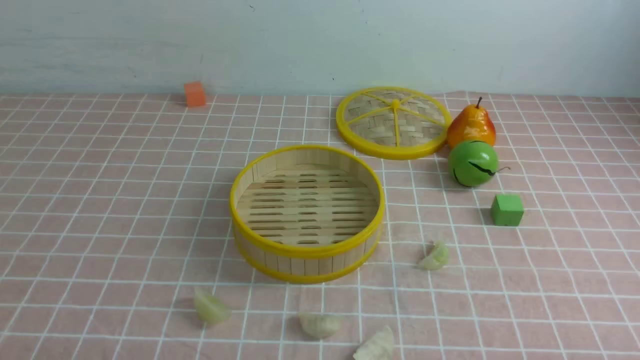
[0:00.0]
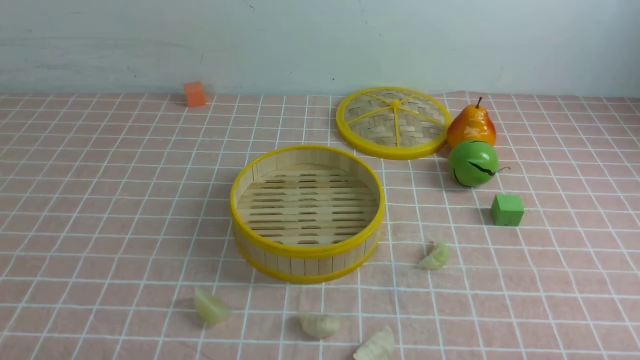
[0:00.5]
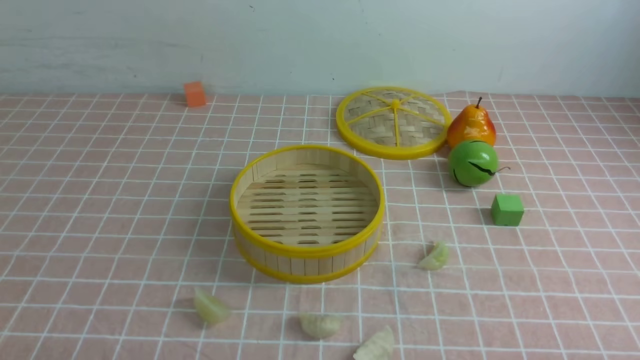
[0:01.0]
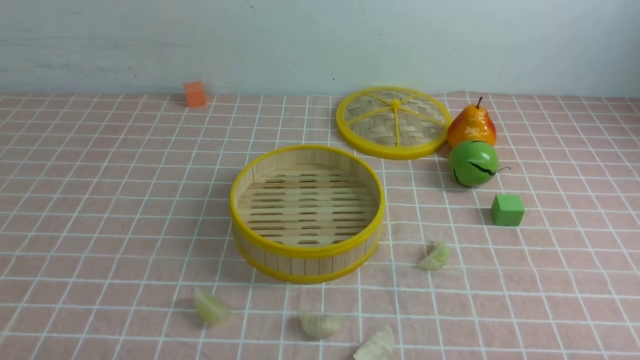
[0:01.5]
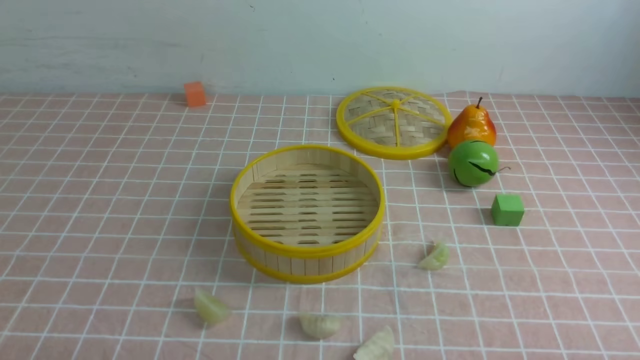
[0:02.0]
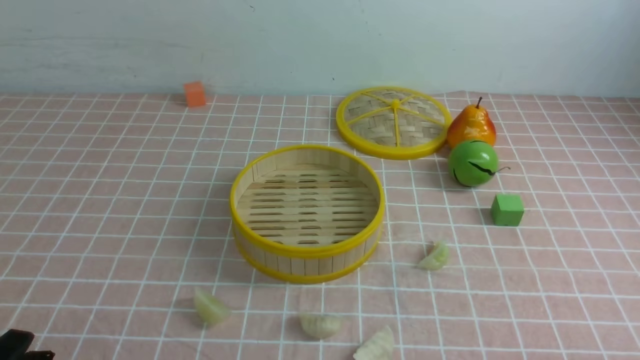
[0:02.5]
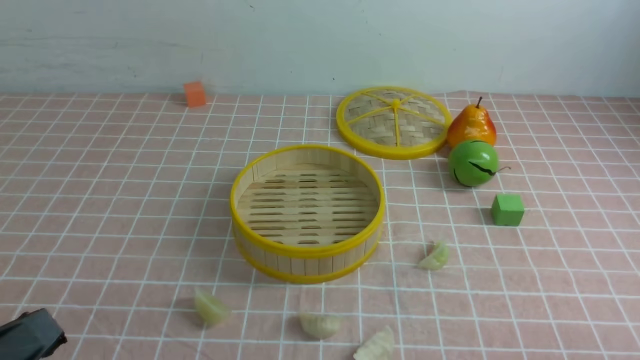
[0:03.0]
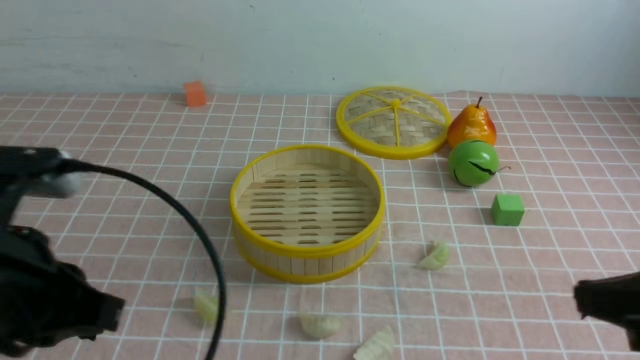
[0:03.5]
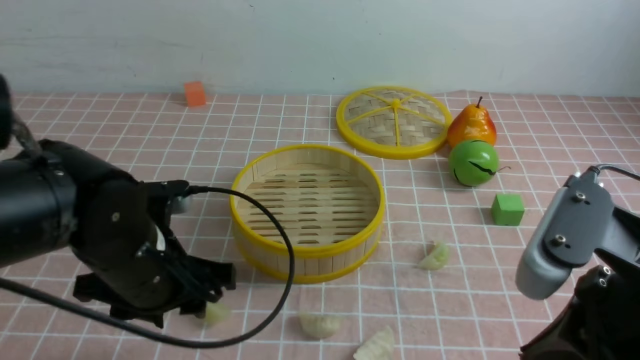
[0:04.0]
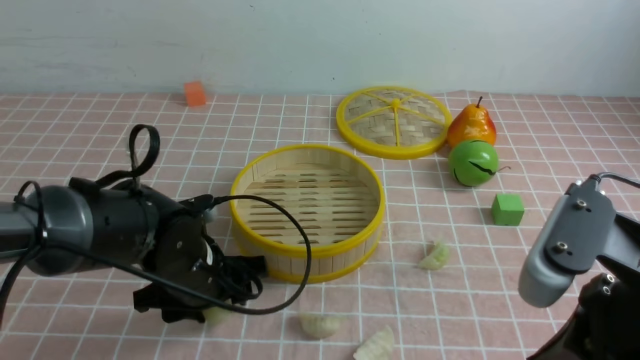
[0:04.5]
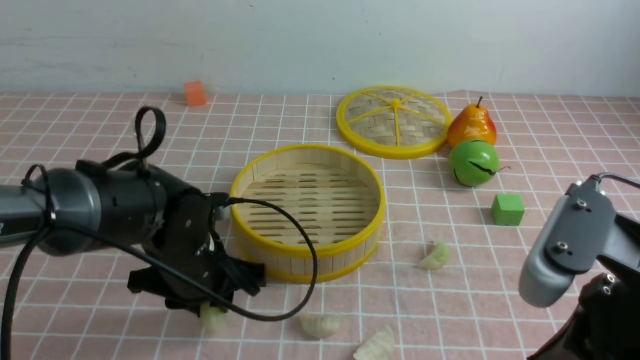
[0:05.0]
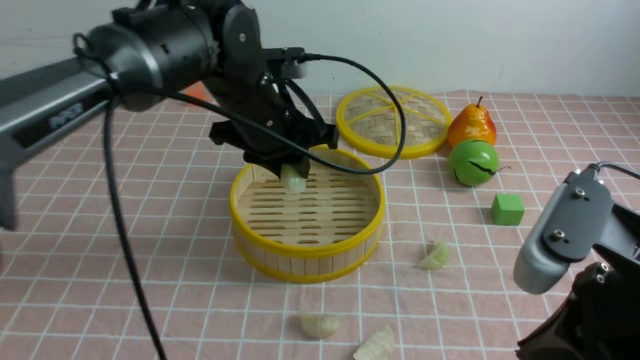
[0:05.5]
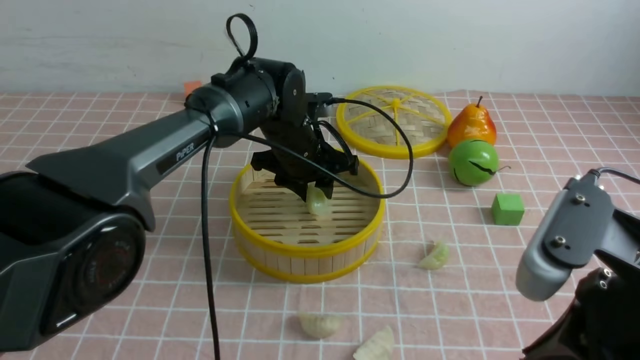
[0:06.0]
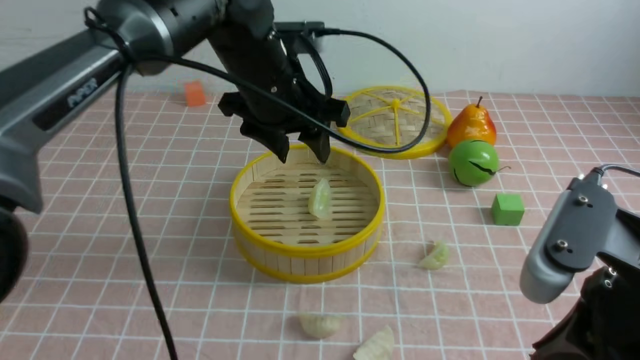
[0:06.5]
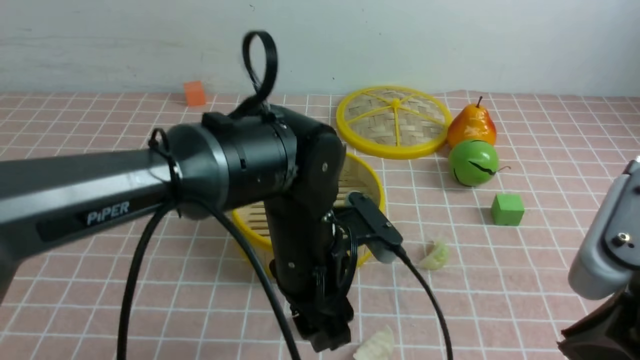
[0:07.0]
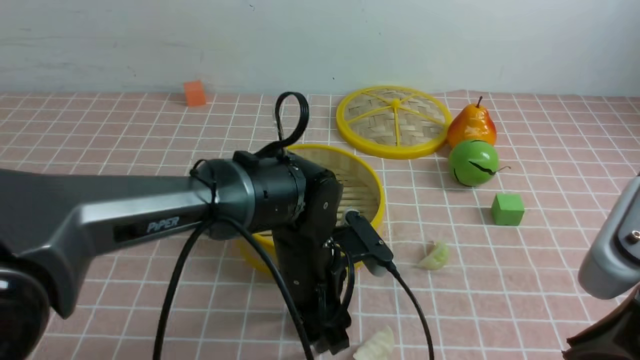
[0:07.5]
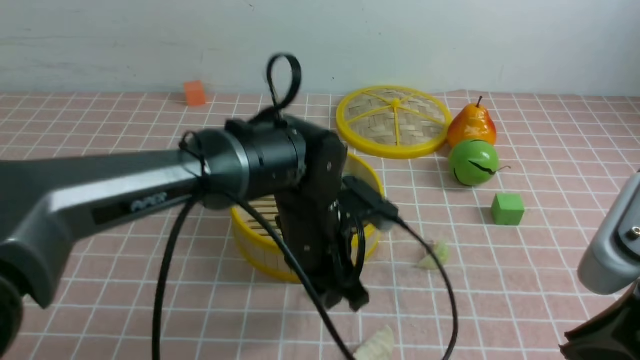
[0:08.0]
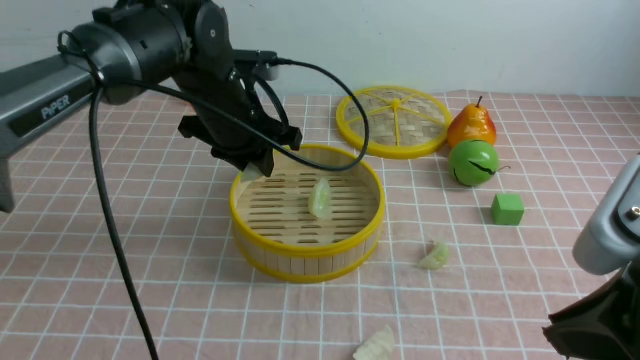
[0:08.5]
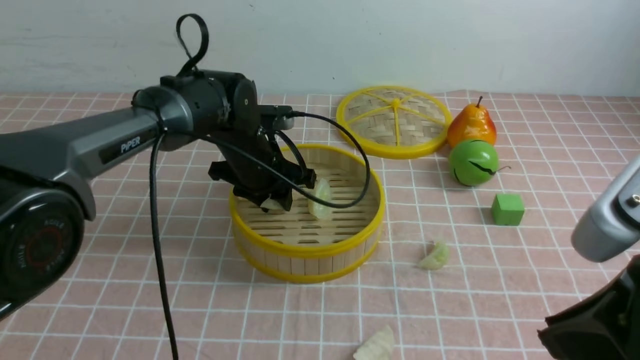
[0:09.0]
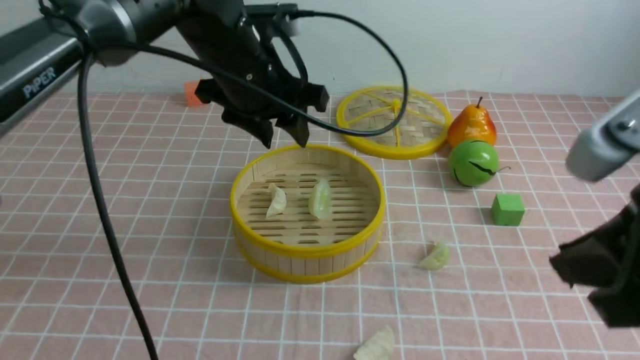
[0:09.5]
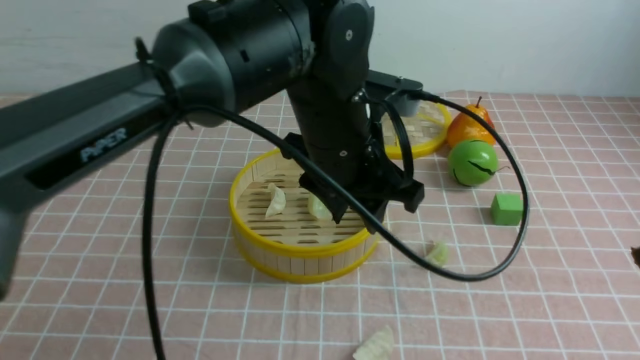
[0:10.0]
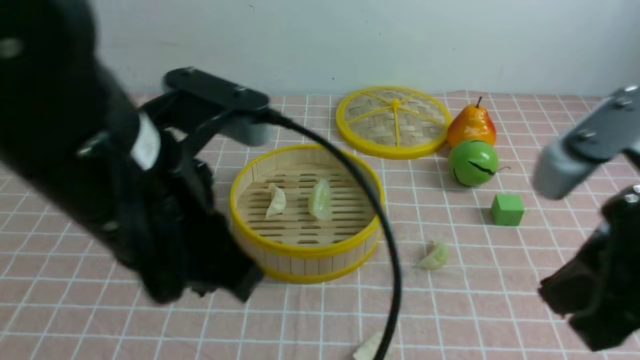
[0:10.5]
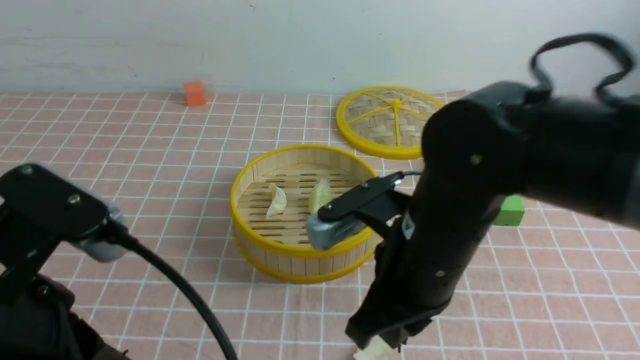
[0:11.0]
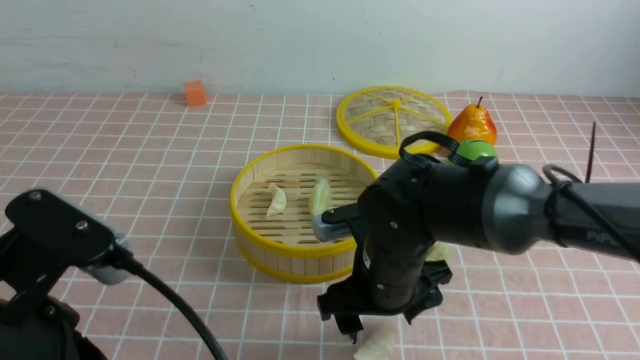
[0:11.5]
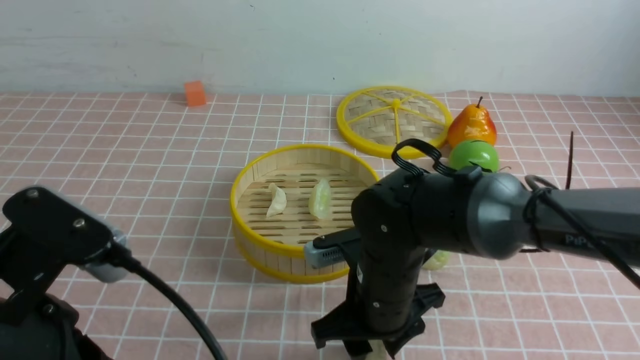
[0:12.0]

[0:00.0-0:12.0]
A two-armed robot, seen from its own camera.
Task of the whole recording: put the dumplings into the steamer on the table with the pink tablecloth.
Step, 0:00.0 to 0:05.0: use the left arm to grab a dumpling.
Step, 0:05.5 to 0:06.0: use the left arm to put the dumpling into the steamer.
Step, 0:06.5 to 0:07.5: use the left arm to grab a dumpling.
Step, 0:08.0 to 0:09.0: use the left arm to put the dumpling into the steamer.
0:02.0 to 0:04.0: The right gripper travels upward, to the left and forward by about 20 cm, and closes up. Meanwhile the left gripper shifts approximately 20 cm forward and to the right, and closes, then reopens.
0:04.0 to 0:06.0: The left gripper heads forward and to the right, covering some 25 cm.
0:06.0 to 0:08.0: The left gripper heads backward, covering approximately 15 cm.
0:08.0 to 0:10.0: The right gripper heads upward, covering some 5 cm; the left gripper swings up and down, about 15 cm each way, with 2 reversals.
0:10.0 to 0:12.0: The right gripper heads downward, to the left and forward, covering approximately 35 cm, and opens; the left gripper is displaced backward and to the left by some 25 cm, and closes up.

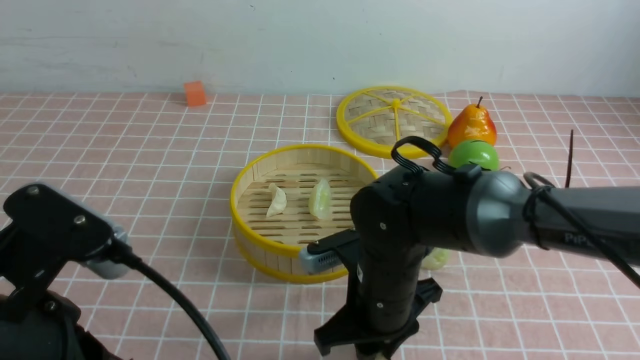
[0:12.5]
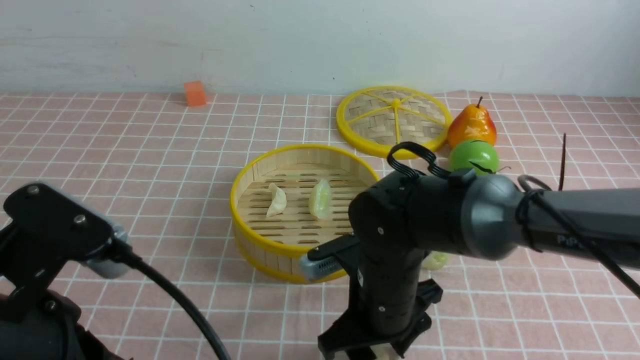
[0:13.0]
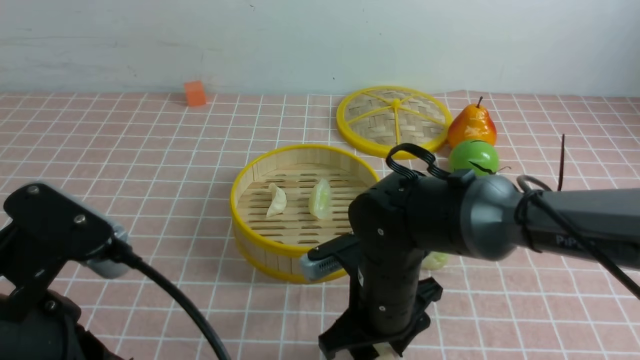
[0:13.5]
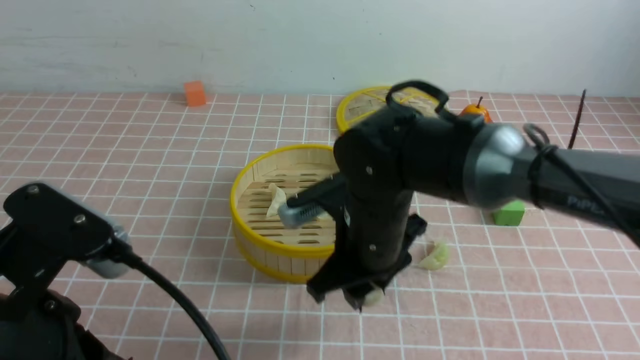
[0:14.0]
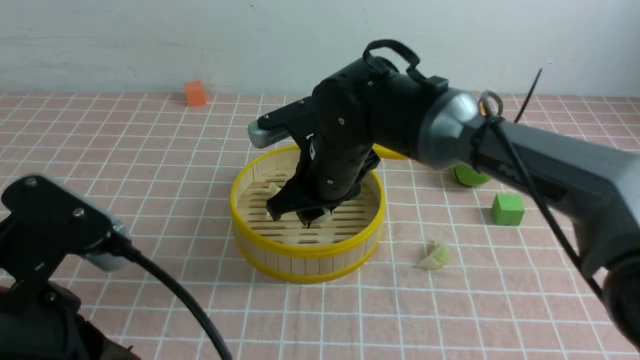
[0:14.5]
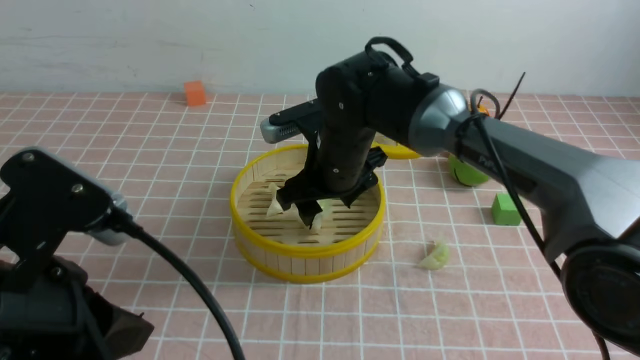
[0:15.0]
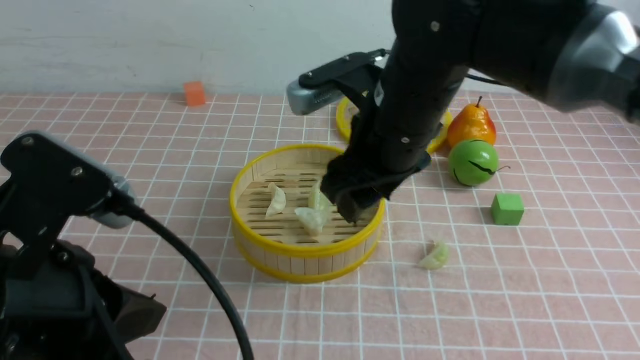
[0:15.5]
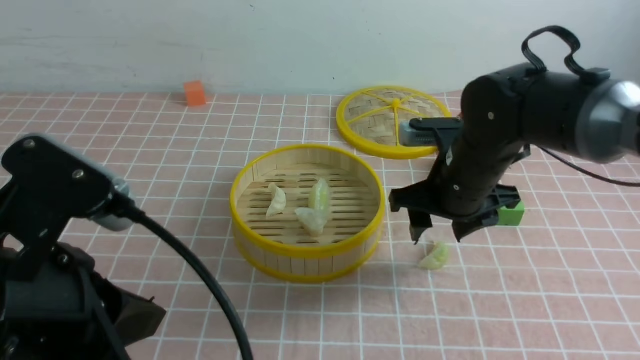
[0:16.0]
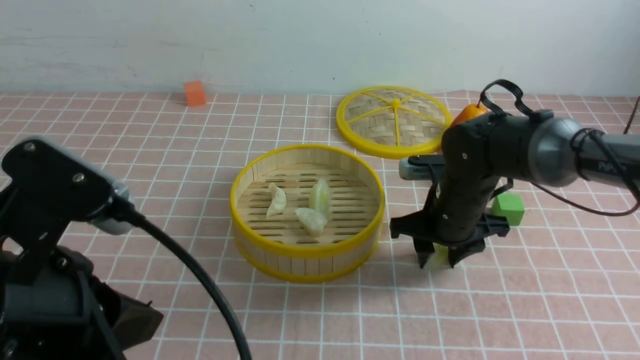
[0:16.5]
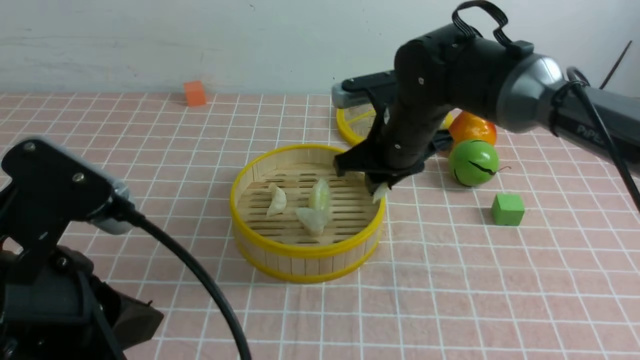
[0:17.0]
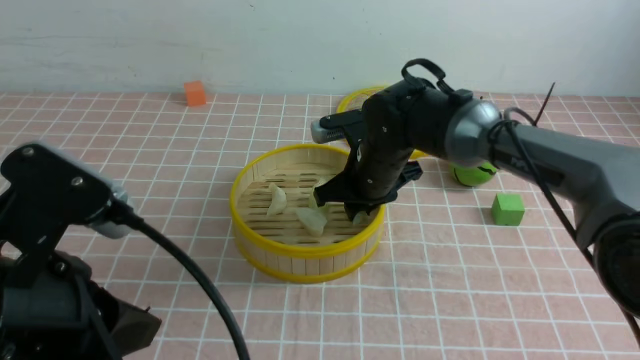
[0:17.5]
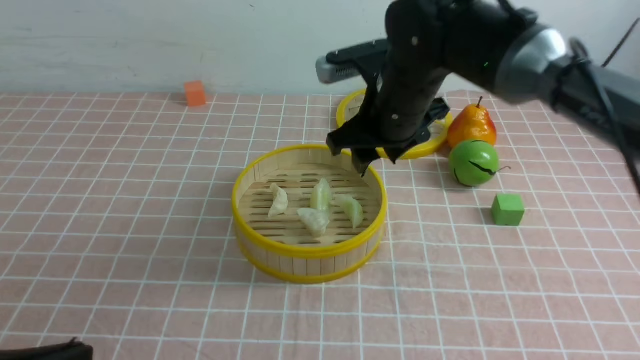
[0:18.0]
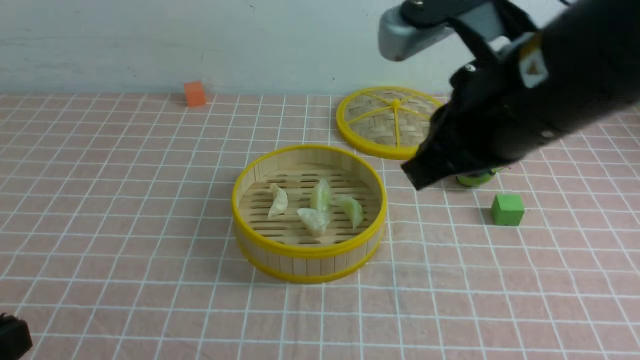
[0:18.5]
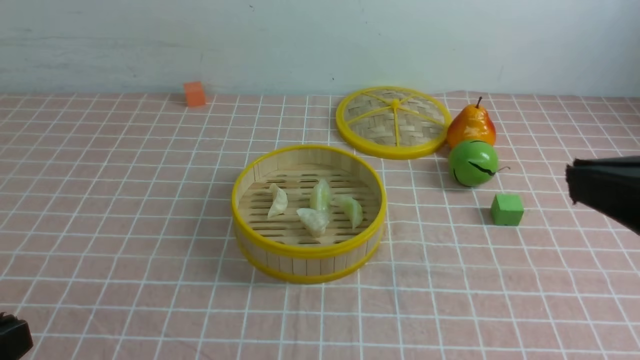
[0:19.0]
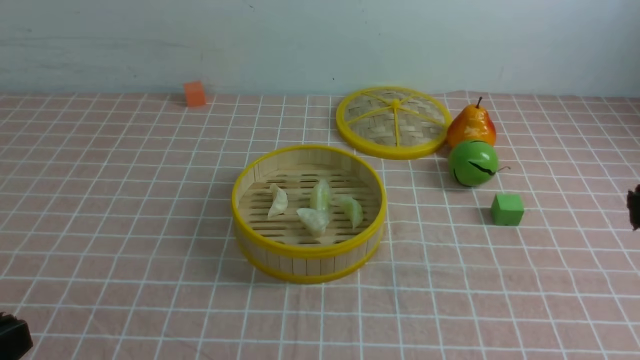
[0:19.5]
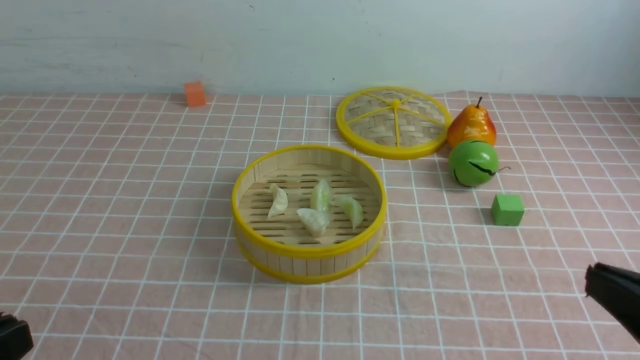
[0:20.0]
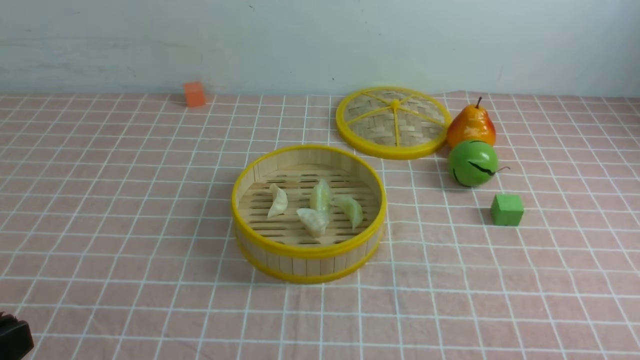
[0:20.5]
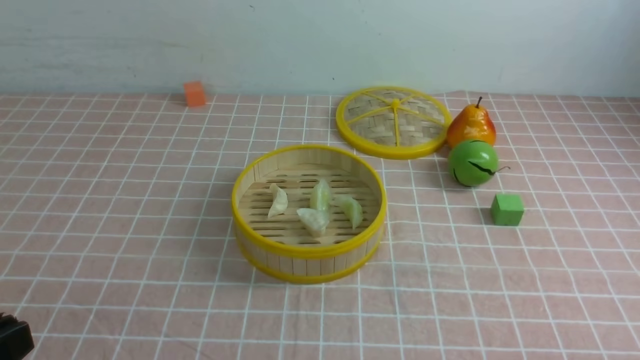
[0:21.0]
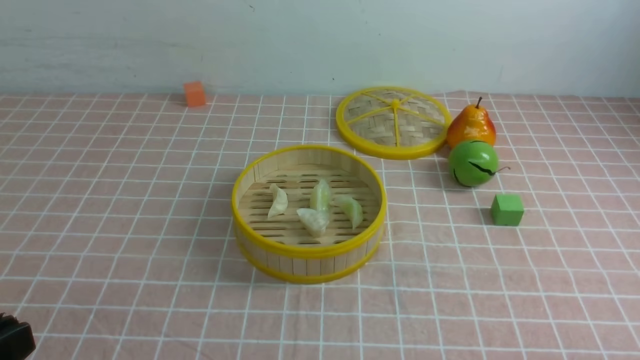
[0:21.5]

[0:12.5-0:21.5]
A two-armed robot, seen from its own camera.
Task of the whole recording: put the dumplings into the steamer on the table with the pink tablecloth.
Step, 0:14.0 to 0:15.0: use the right arm to put the dumpling into the steamer.
Step, 0:15.5 to 0:16.5: use the right arm to grab a dumpling.
Step, 0:17.0 to 0:17.5: use the right arm to put the dumpling into the steamer.
0:12.5 to 0:14.5: The right gripper is displaced upward and forward by roughly 10 cm, and opens, then closes once more.
0:14.5 to 0:17.0: The right gripper moves up and down over about 15 cm, changing direction 2 times, and opens and closes again.
0:17.0 to 0:19.5: The right gripper shifts approximately 40 cm backward, upward and to the right, and closes its fingers; the left gripper heads to the left and backward, covering roughly 10 cm.
0:19.5 to 0:21.5: The right gripper is displaced downward by about 20 cm.
